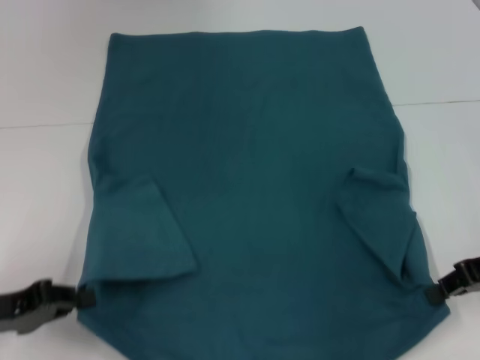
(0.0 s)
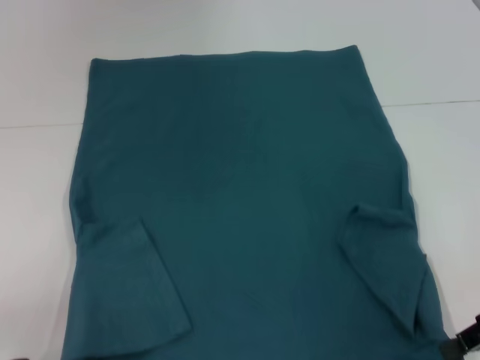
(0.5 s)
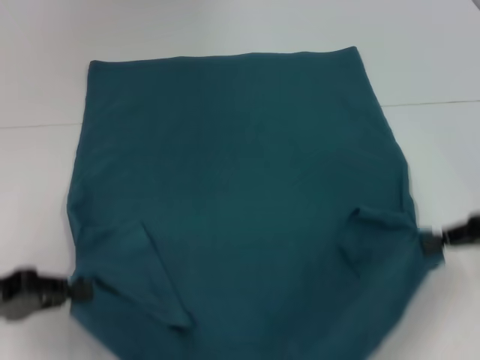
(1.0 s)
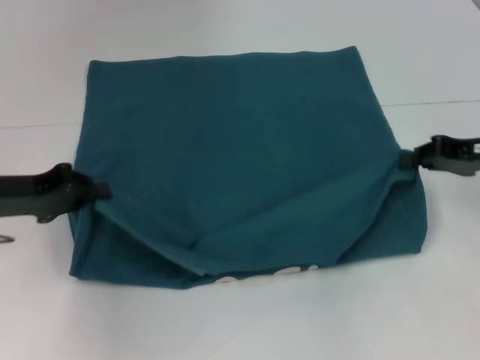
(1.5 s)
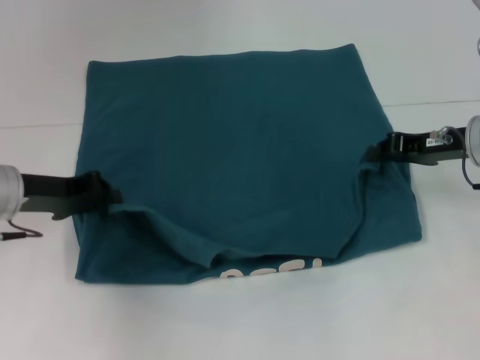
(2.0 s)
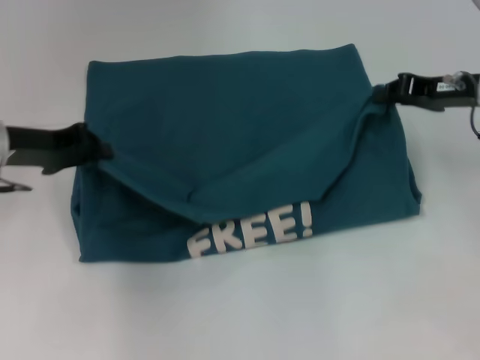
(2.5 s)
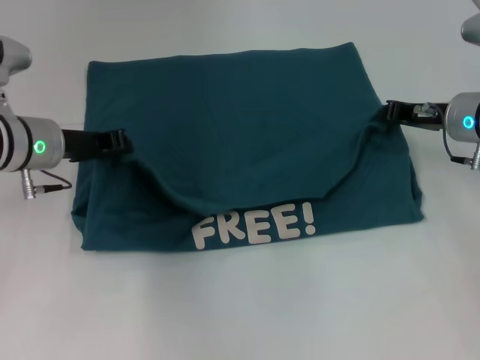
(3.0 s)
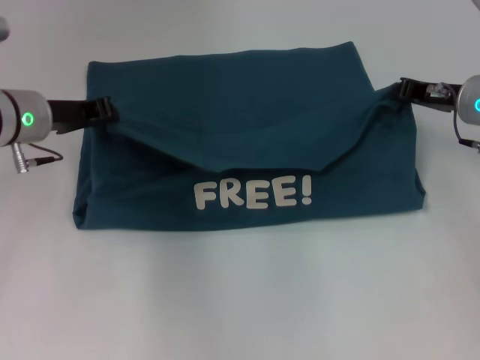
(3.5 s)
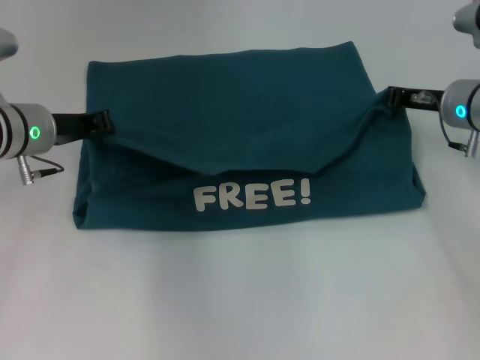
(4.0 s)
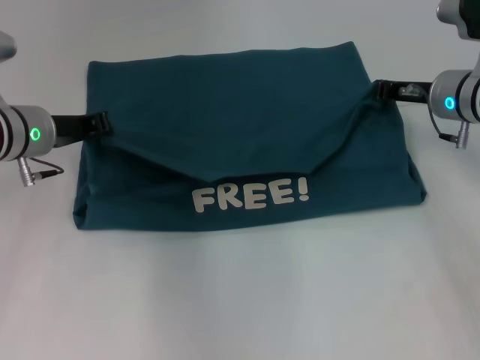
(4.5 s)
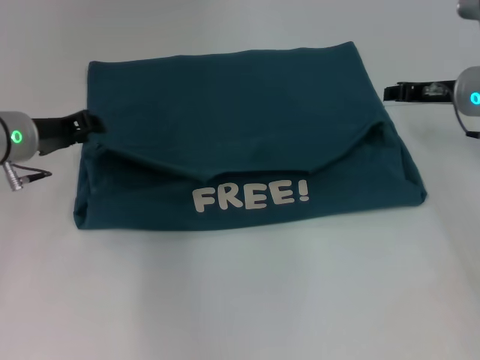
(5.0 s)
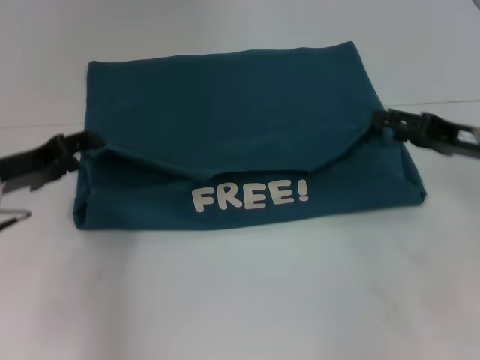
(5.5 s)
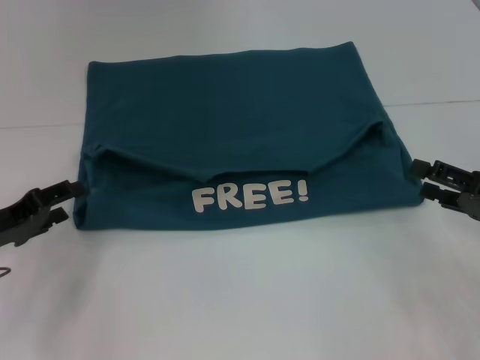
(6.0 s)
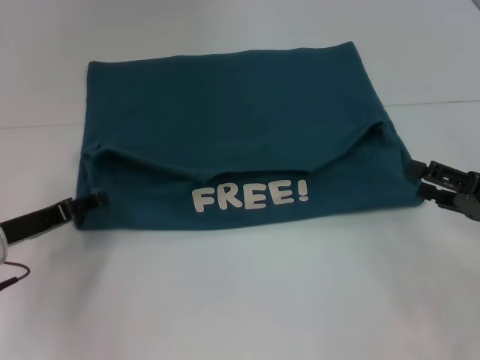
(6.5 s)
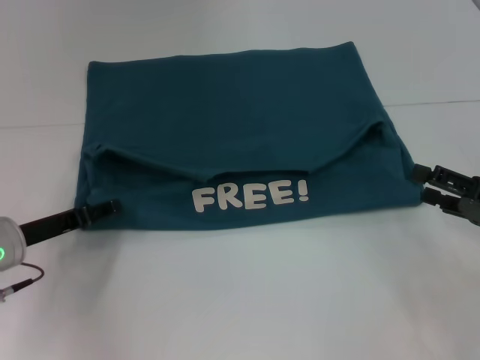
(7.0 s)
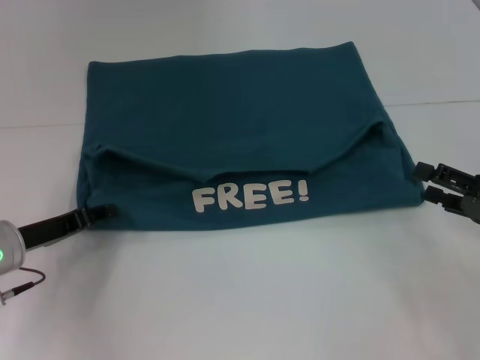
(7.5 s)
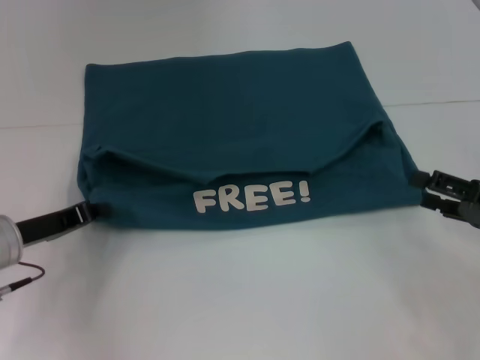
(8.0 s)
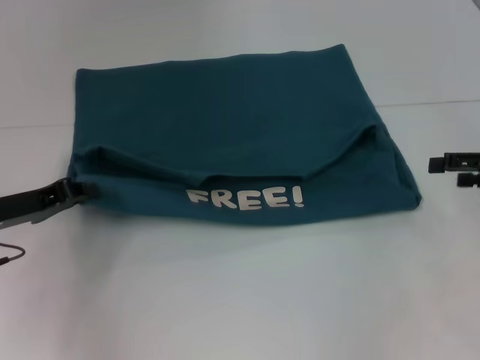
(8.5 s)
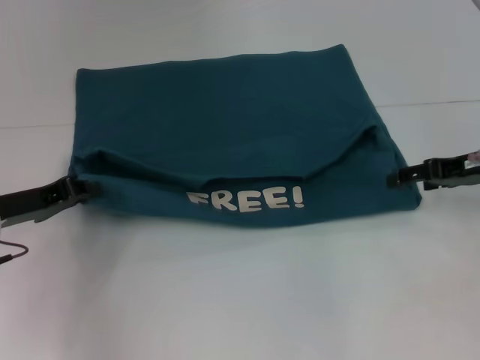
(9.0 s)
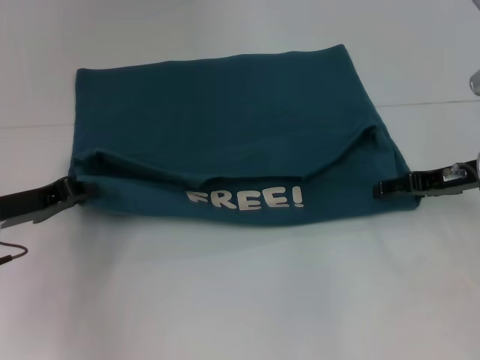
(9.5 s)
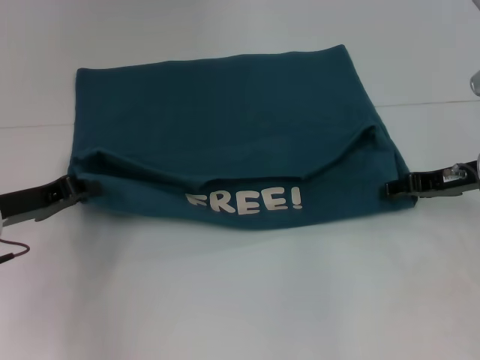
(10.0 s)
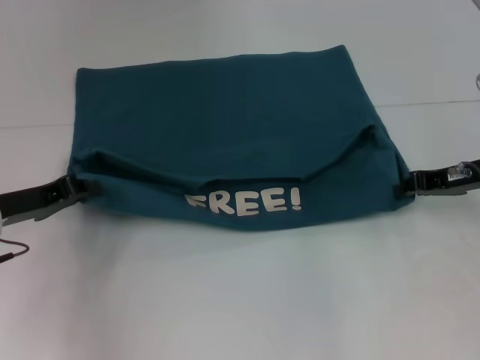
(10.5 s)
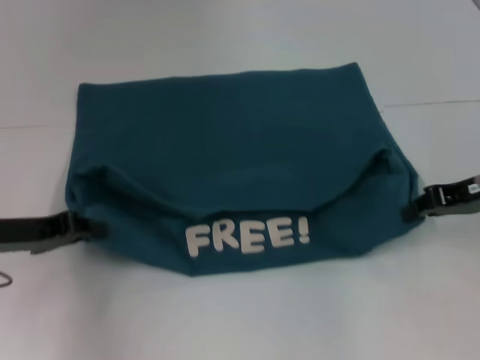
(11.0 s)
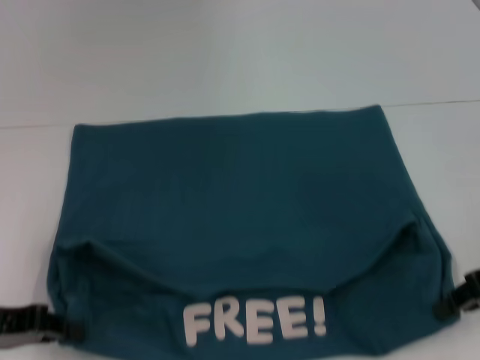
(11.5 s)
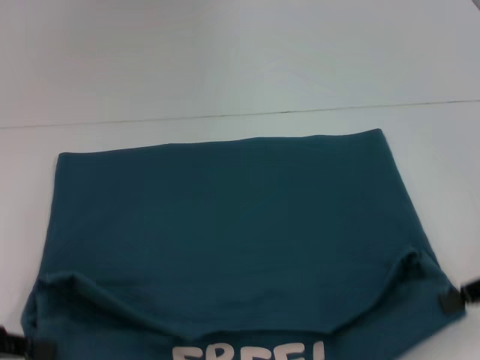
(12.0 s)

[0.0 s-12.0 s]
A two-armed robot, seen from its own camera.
Step, 0.5 to 4.5 s: Fold the clothes to the left.
Step, 0.5 to 4.5 s: Fold the clothes to the right.
Step, 5.0 to 11.5 s: Pull the clothes with your left hand.
Step, 5.0 to 11.5 s: Pull the clothes with your right hand.
0.0 to 2.0 s: The left gripper is displaced forward and to the right by approximately 15 cm; the right gripper travels forward by roughly 10 cm.
2.0 to 4.0 s: The left gripper travels forward by approximately 5 cm. The right gripper ends up some 5 cm from where it was.
4.0 to 6.0 s: The left gripper travels backward, to the left and downward by approximately 15 cm, and opens up; the right gripper travels backward and to the right by about 20 cm, and opens up.
6.0 to 8.0 s: The left gripper closes.
8.0 to 10.0 s: The right gripper moves forward, about 10 cm.
10.0 to 12.0 s: The right gripper travels backward by some 10 cm, and closes up; the left gripper moves backward and to the left, some 10 cm.

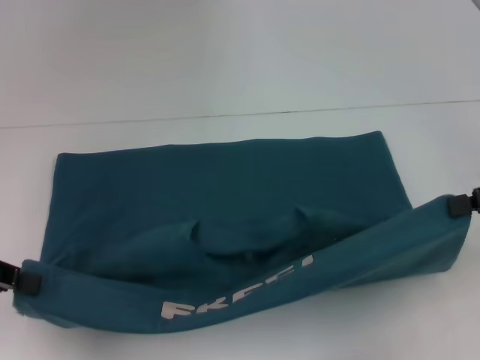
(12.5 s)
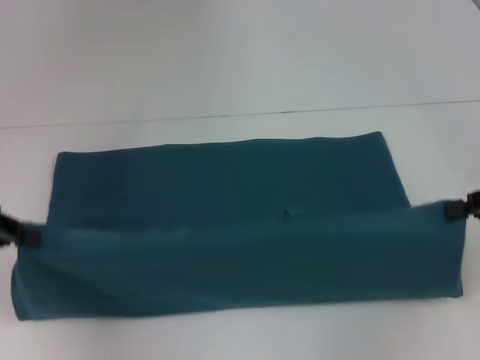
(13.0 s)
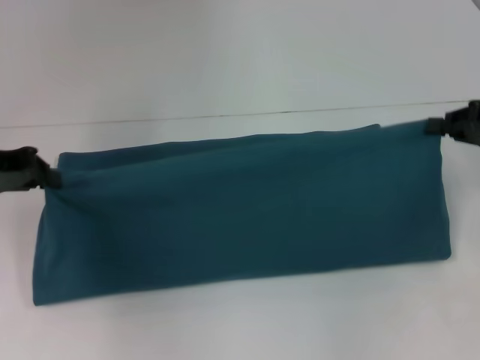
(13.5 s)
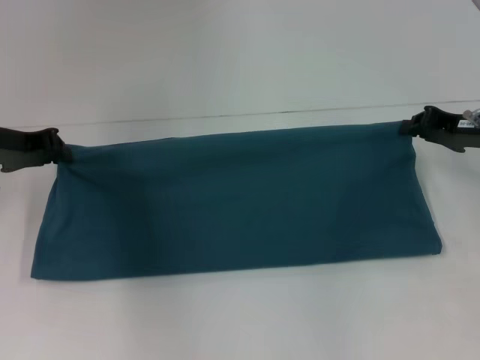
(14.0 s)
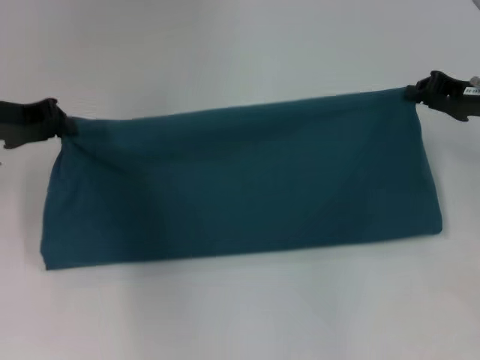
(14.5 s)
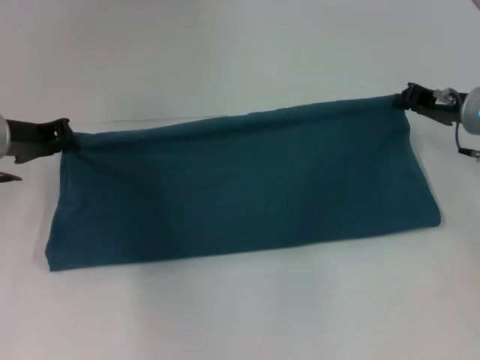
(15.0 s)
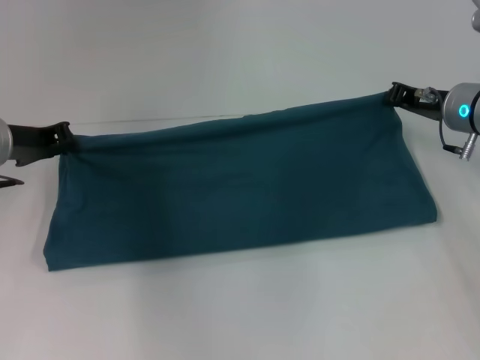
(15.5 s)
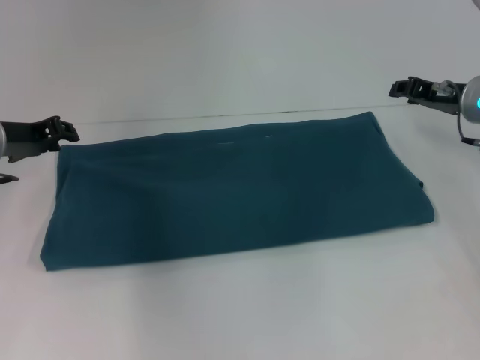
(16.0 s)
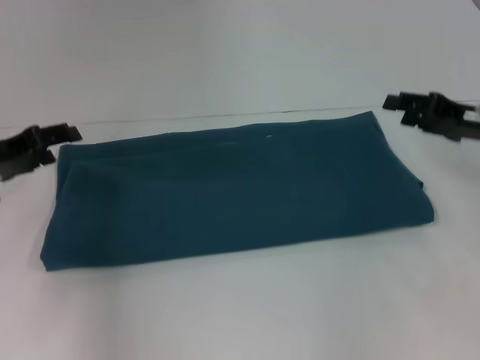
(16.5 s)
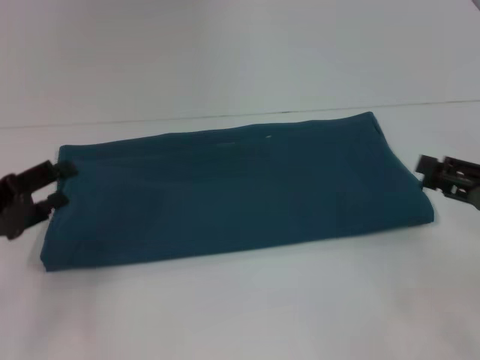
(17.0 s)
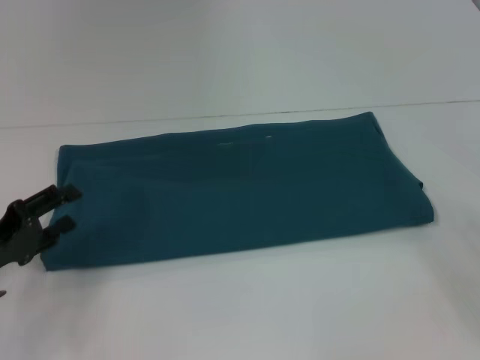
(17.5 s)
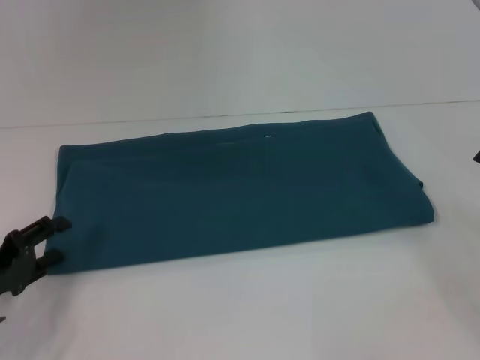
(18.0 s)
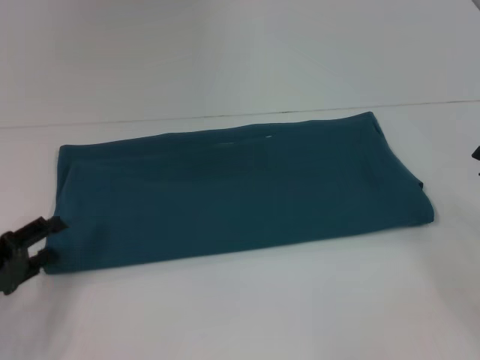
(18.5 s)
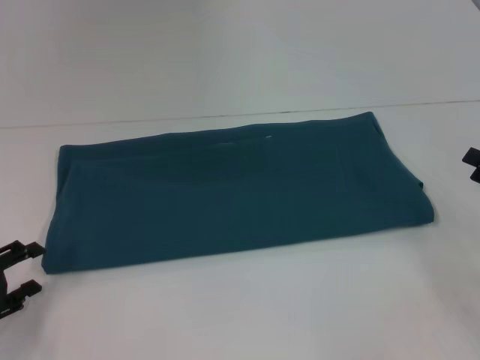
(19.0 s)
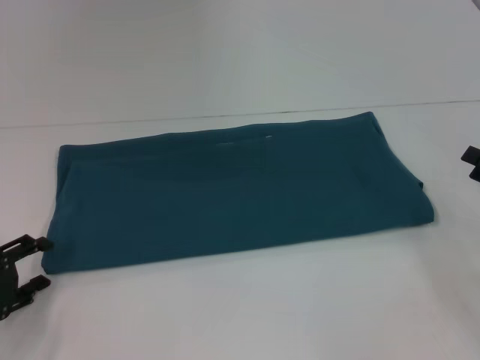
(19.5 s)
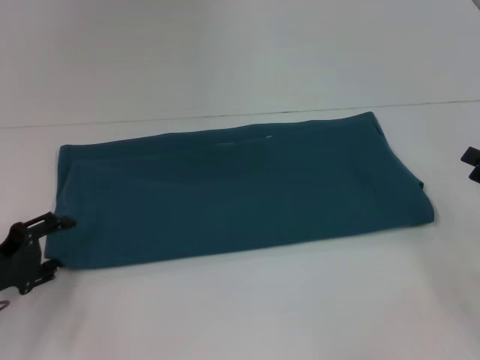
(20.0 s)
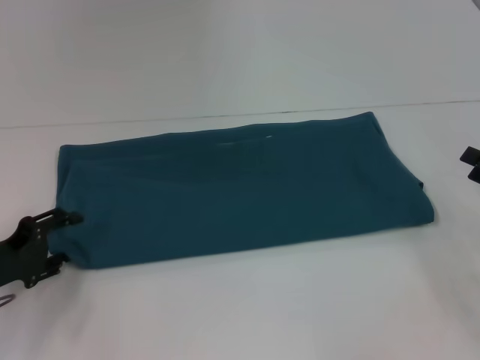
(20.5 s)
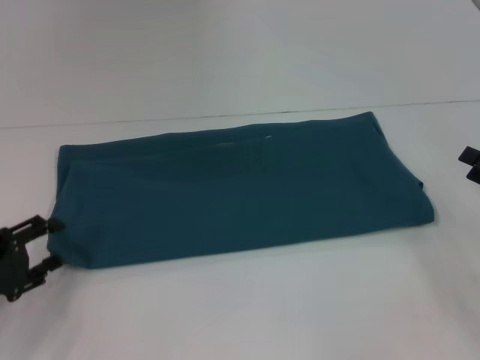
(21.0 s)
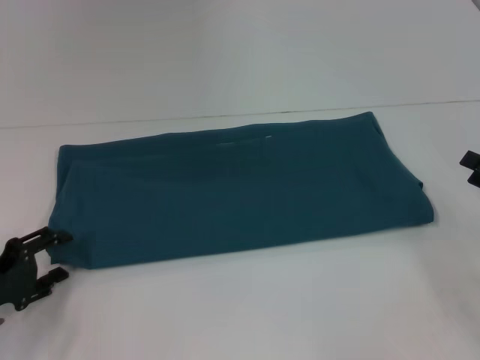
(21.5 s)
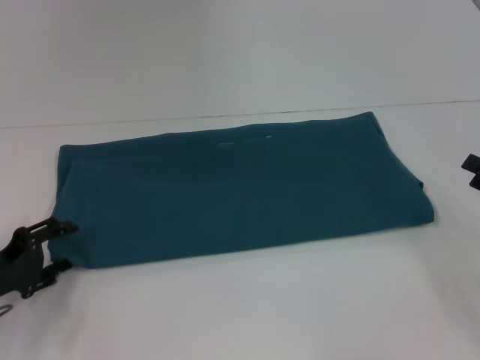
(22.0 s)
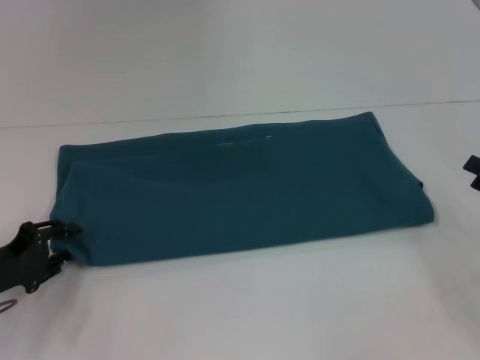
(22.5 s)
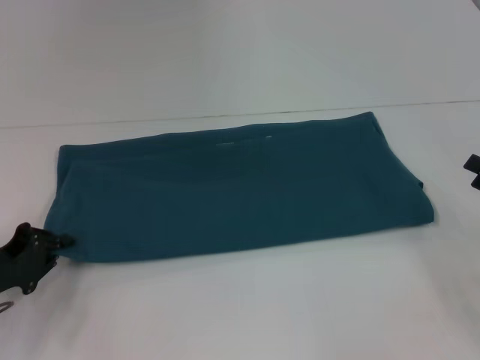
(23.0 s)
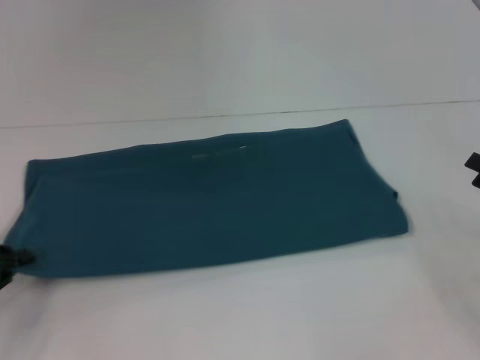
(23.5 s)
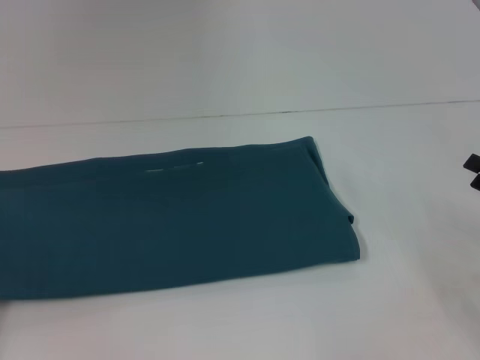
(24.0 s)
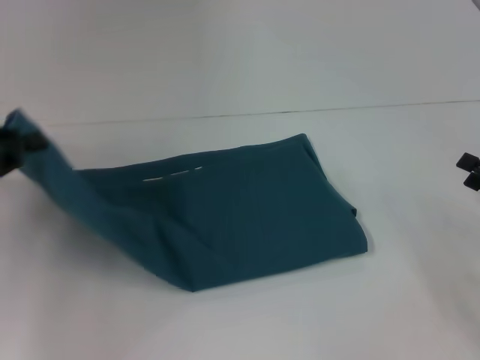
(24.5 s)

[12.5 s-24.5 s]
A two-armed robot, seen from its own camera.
Step, 12.5 to 15.5 s: Fold the clothes to the right.
12.5 to 14.5 s: The right gripper travels forward by roughly 10 cm. Meanwhile the left gripper travels forward and to the right by roughly 15 cm.
14.5 to 16.5 s: The right gripper opens up. Meanwhile the left gripper is displaced downward by roughly 5 cm, and opens its fingers.
16.5 to 18.5 s: The right gripper moves backward and to the right, about 15 cm. Meanwhile the left gripper shifts about 15 cm backward and downward.
18.5 to 22.5 s: The grippers stay close to where they were, moving slightly.
22.5 to 24.5 s: The left gripper heads upward, covering roughly 15 cm, and closes up.

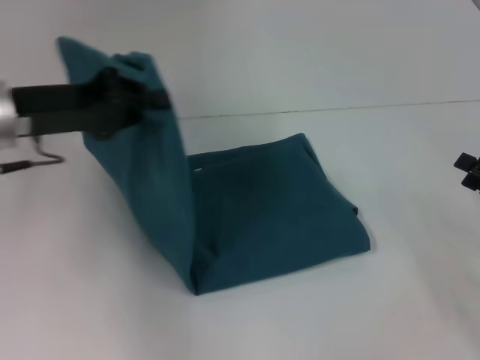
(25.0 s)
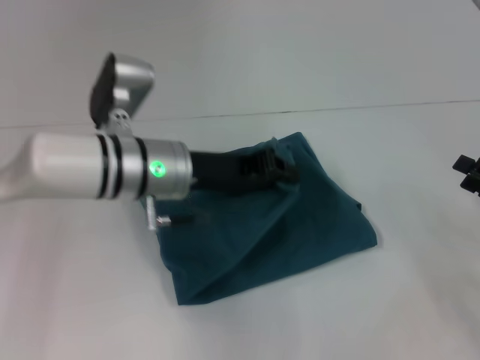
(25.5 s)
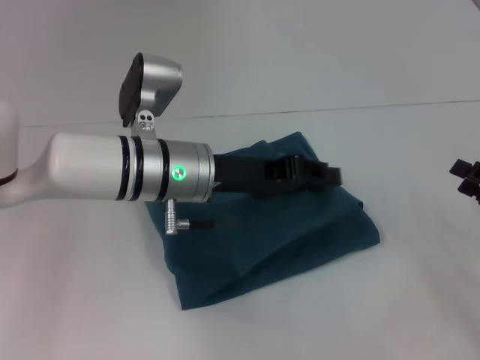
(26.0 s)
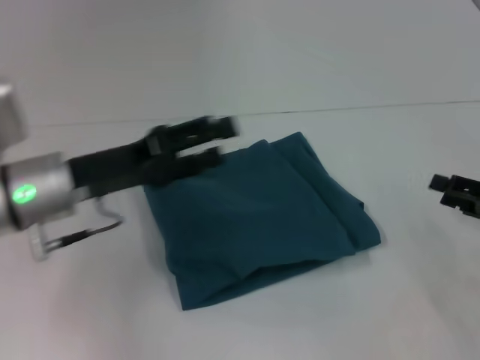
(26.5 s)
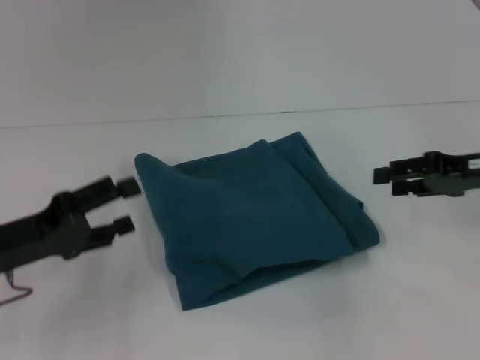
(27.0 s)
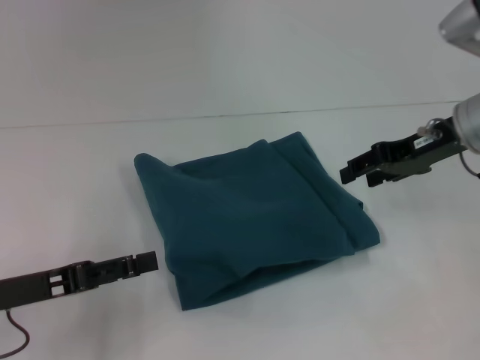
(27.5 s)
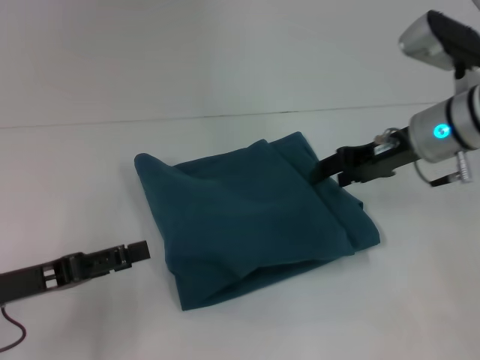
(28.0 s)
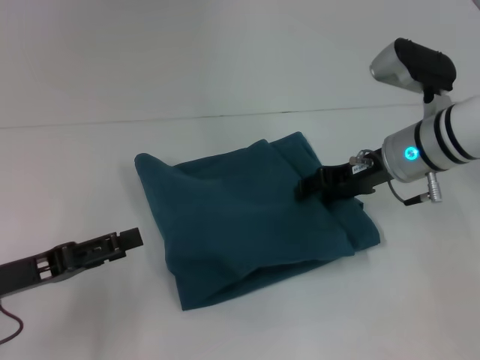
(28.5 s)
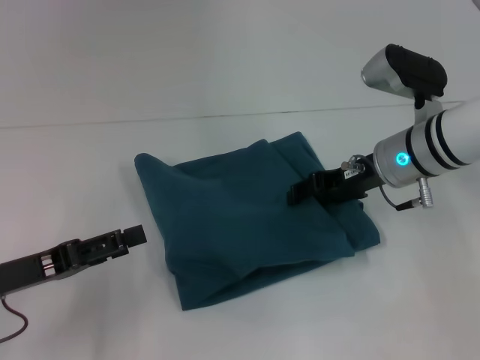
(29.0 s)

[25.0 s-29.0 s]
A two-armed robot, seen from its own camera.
25.0 to 27.0 s: The left gripper travels downward and backward by about 15 cm, moves some 15 cm to the right and comes back, and opens its fingers. The right gripper is displaced forward, upward and to the left by roughly 10 cm.
27.0 to 29.0 s: The right gripper goes approximately 15 cm to the left.
